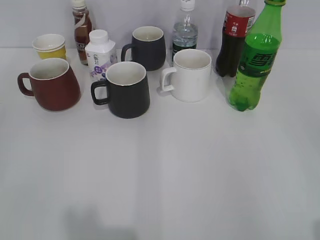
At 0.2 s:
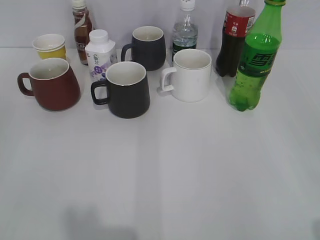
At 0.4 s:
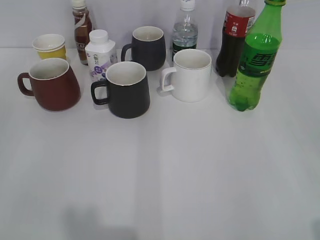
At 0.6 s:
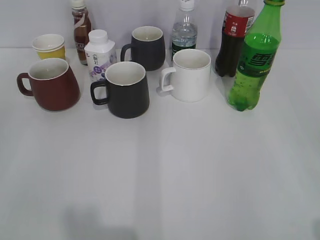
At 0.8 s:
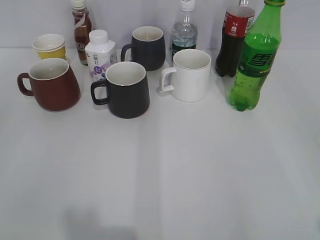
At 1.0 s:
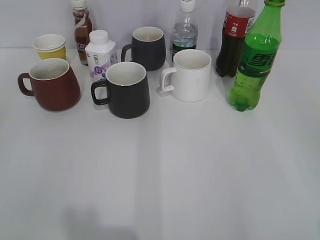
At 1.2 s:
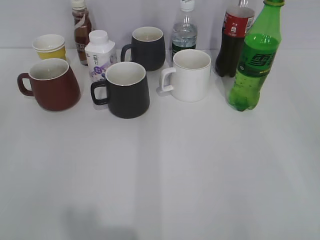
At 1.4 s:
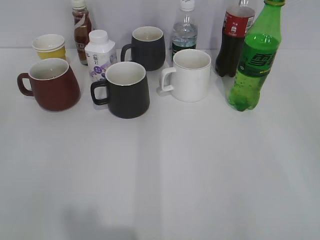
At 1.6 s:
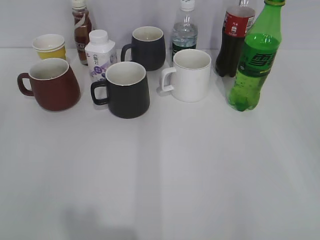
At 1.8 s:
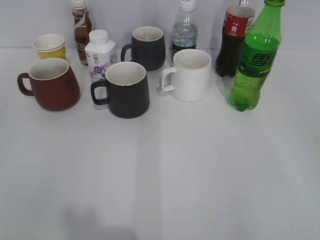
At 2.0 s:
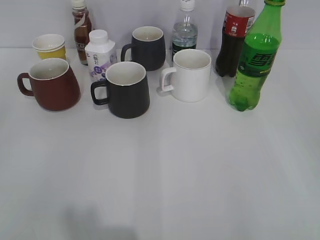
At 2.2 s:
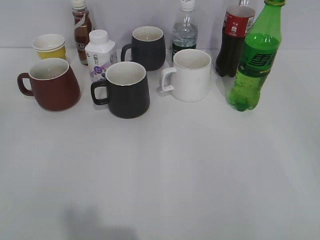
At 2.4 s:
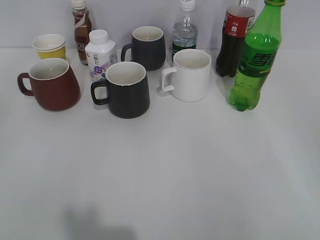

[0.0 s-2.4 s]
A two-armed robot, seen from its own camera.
1.2 to 2.4 s: The two grippers keep their place.

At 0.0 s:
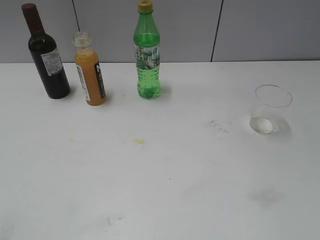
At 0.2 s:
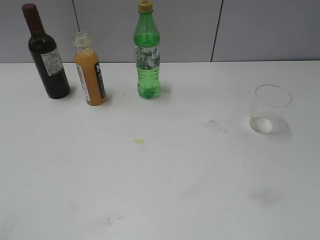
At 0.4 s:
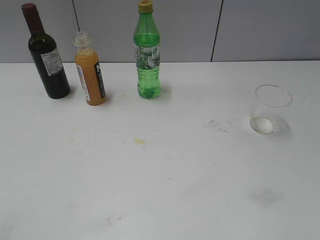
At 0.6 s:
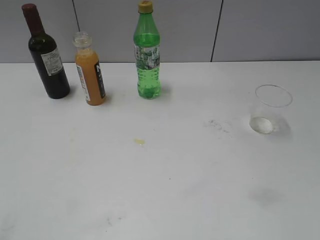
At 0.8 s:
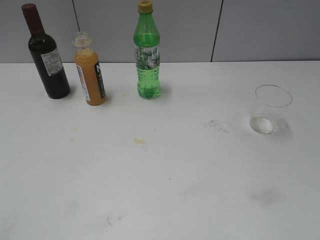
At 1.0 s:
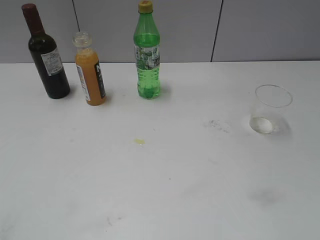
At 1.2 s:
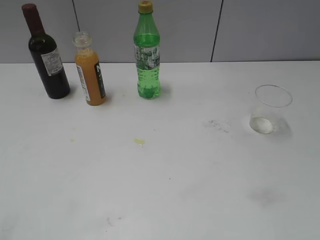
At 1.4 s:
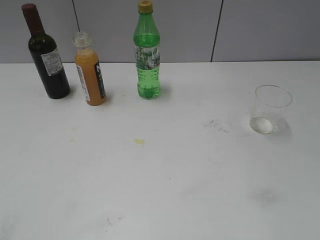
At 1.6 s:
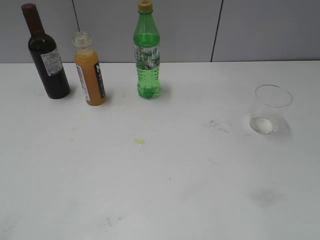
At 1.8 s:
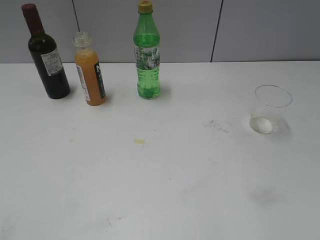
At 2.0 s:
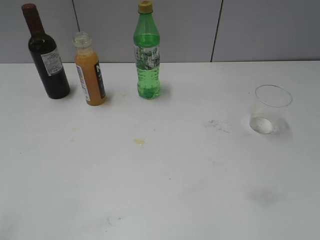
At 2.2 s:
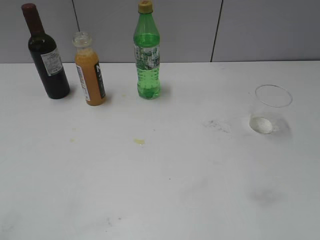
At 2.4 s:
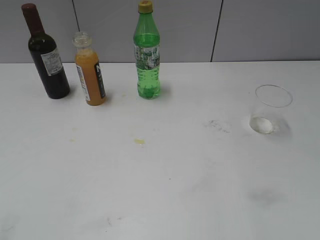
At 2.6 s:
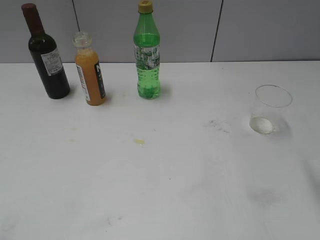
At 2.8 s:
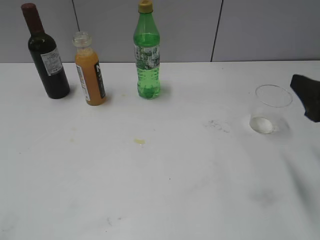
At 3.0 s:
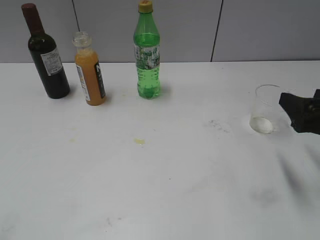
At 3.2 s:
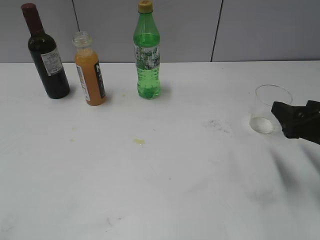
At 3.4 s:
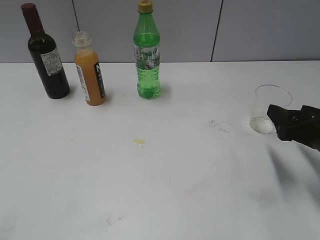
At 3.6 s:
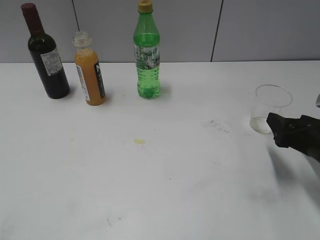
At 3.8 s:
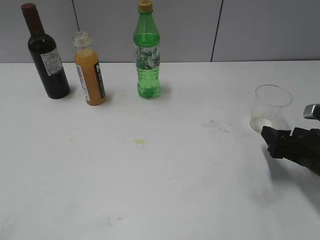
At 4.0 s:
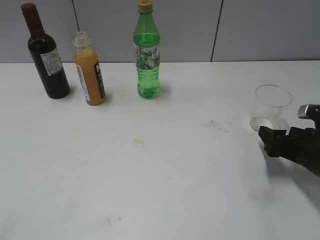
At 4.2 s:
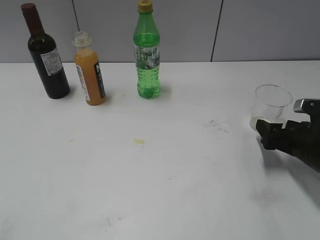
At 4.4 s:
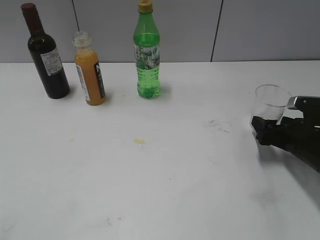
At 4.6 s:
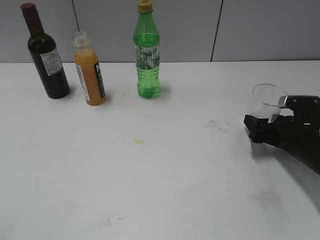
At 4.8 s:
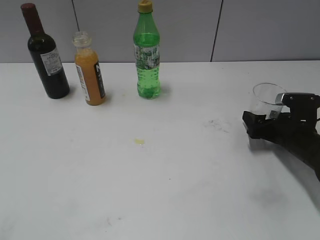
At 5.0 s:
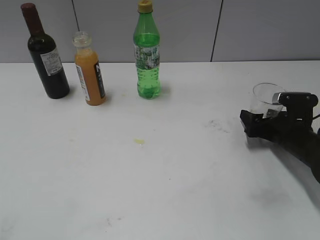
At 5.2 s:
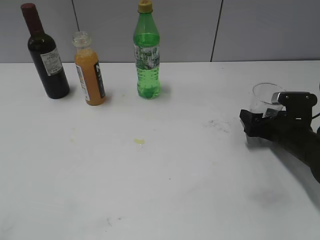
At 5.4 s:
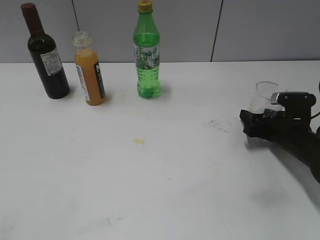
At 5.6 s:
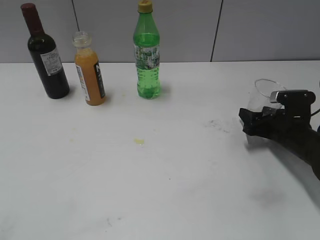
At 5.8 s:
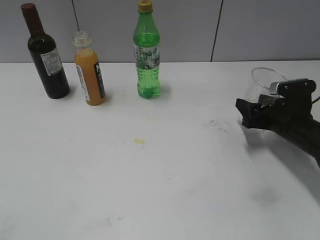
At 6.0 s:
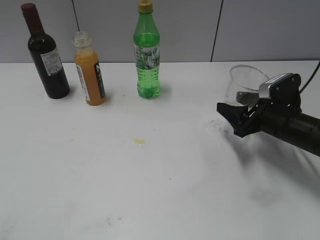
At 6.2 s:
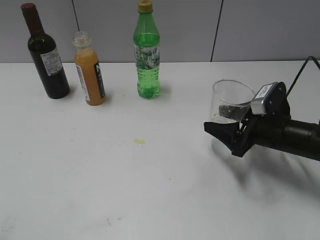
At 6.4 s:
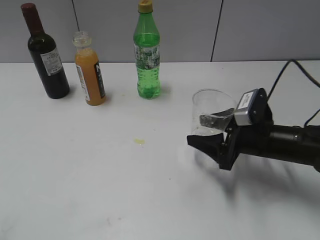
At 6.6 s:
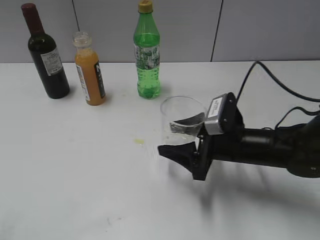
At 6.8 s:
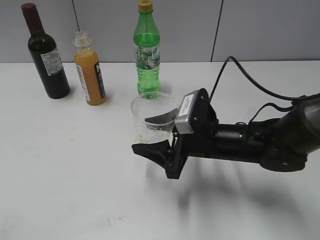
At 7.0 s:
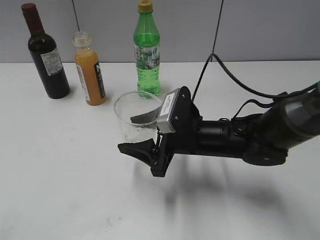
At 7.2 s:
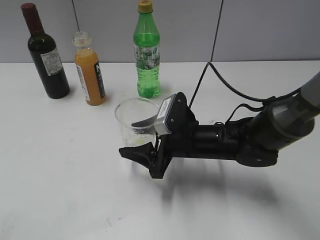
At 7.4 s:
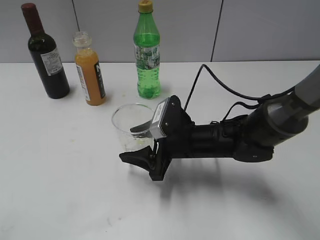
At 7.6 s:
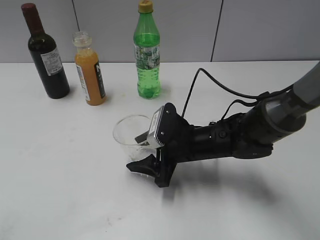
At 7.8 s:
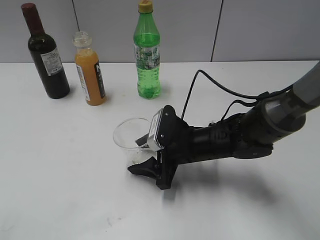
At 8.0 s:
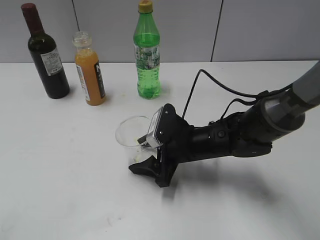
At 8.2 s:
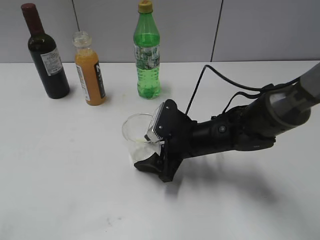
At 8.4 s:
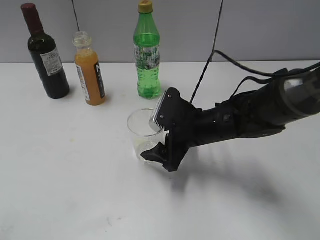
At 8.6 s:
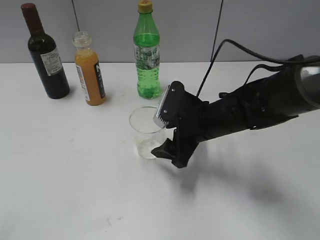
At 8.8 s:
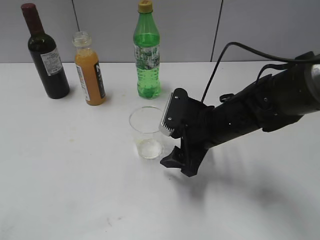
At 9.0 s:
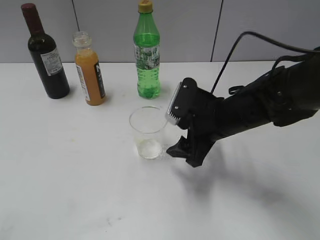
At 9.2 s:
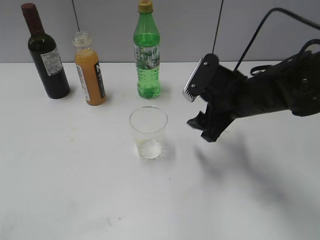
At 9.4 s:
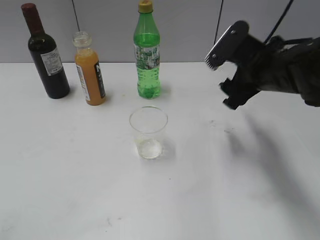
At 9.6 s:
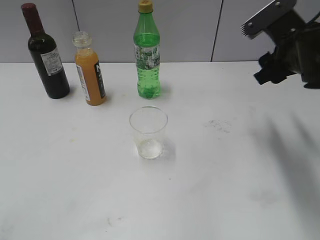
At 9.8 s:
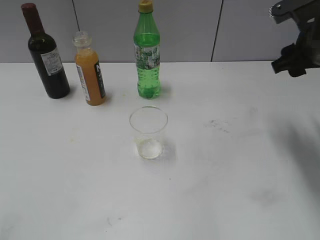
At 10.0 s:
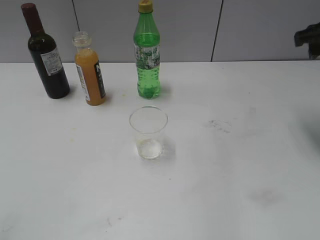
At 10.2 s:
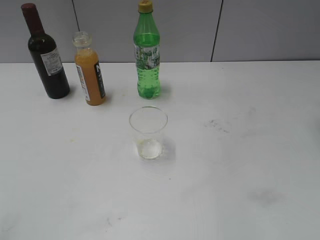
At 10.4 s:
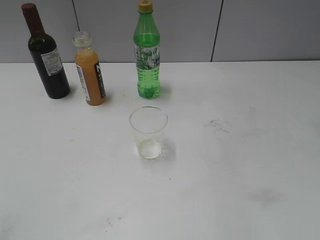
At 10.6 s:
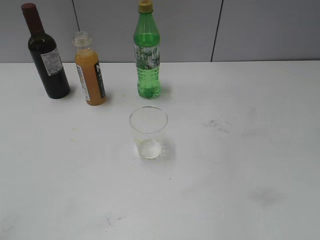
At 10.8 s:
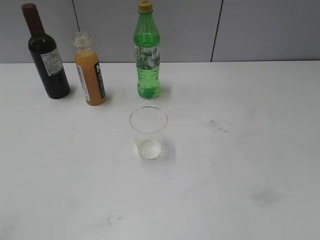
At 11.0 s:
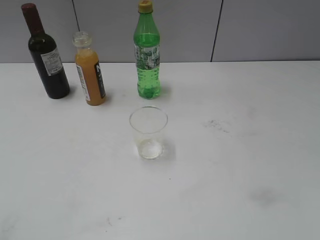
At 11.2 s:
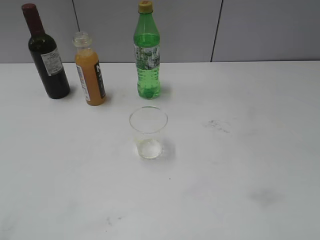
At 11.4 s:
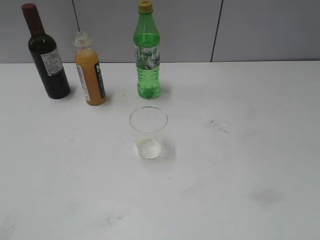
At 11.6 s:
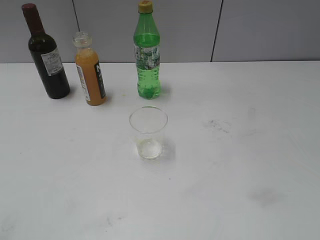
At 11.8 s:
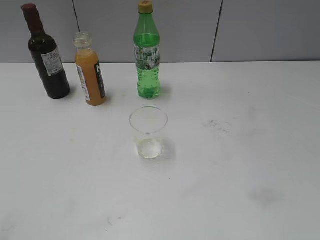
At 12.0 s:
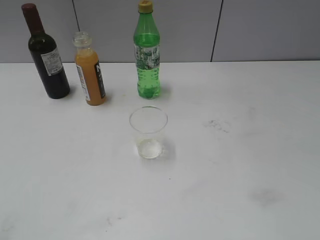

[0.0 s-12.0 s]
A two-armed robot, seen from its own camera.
Step, 2.8 to 5.4 s: Grasp the transparent cup with right gripper.
Step, 5.6 to 8.8 s: Place the transparent cup on the table with right gripper.
1.6 to 3.0 s: The right gripper moves forward and downward, approximately 20 cm.
3.0 to 4.4 s: The right gripper moves downward and forward, about 15 cm, and opens its fingers.
4.4 to 6.0 s: The right gripper changes place by approximately 5 cm, and closes.
6.0 to 7.6 s: The right gripper moves to the left, roughly 15 cm.
7.6 to 9.0 s: The right gripper goes some 5 cm upward, and opens.
9.0 to 10.4 s: The right gripper is displaced upward and to the right by approximately 30 cm, and closes.

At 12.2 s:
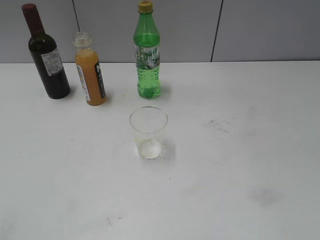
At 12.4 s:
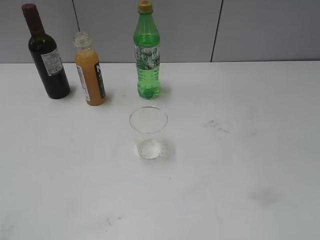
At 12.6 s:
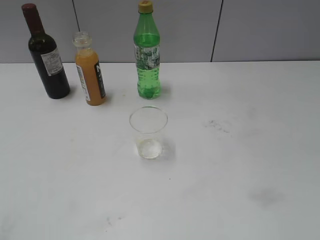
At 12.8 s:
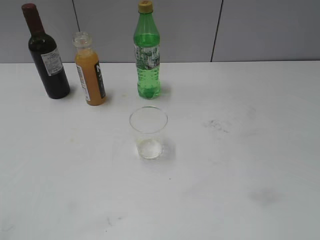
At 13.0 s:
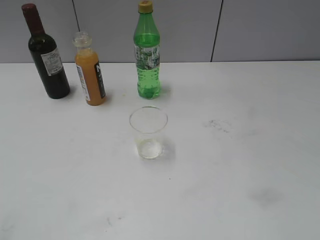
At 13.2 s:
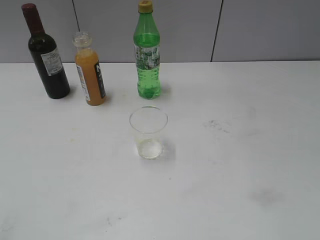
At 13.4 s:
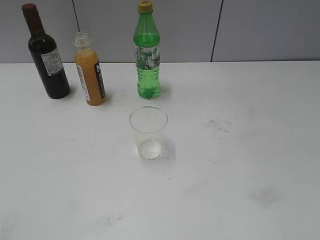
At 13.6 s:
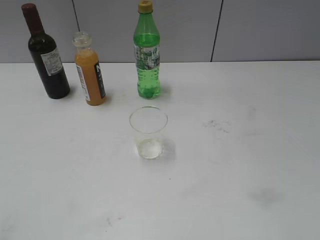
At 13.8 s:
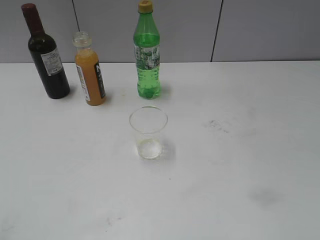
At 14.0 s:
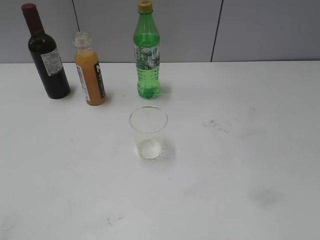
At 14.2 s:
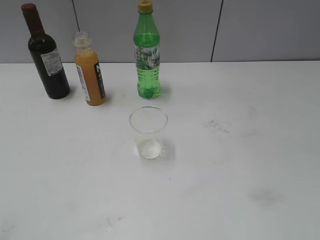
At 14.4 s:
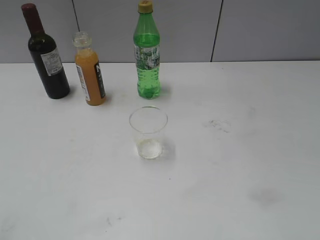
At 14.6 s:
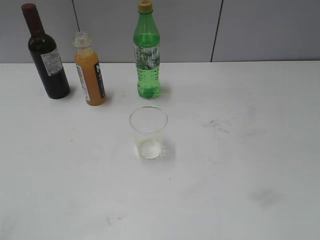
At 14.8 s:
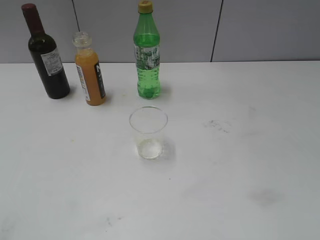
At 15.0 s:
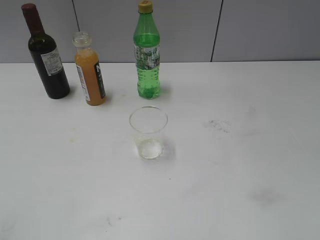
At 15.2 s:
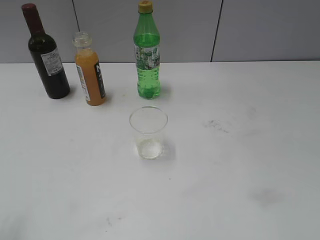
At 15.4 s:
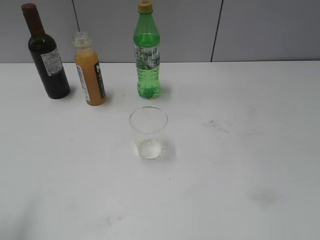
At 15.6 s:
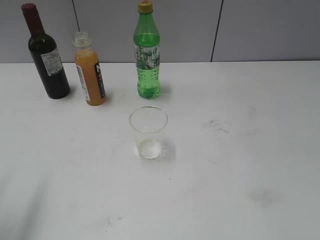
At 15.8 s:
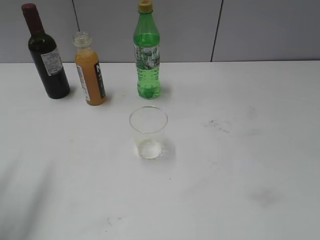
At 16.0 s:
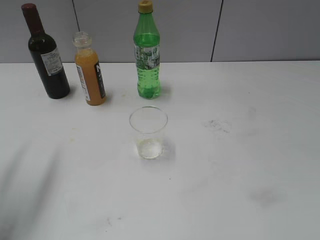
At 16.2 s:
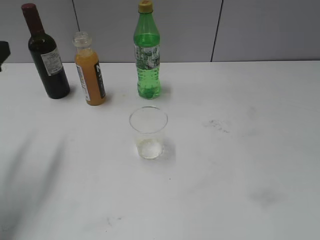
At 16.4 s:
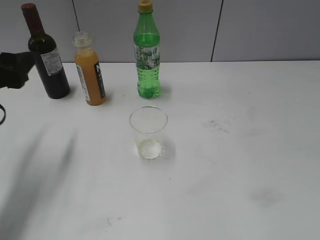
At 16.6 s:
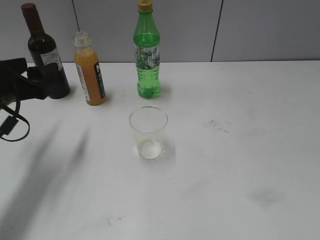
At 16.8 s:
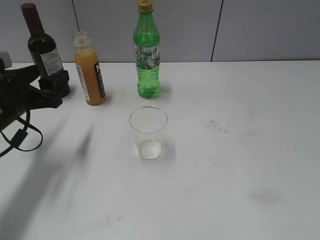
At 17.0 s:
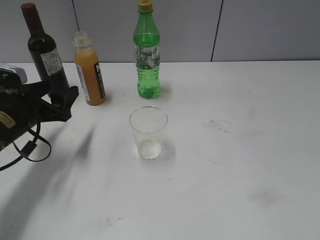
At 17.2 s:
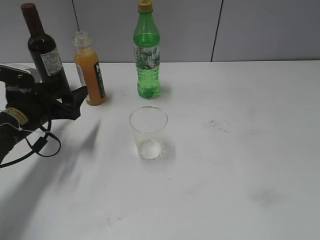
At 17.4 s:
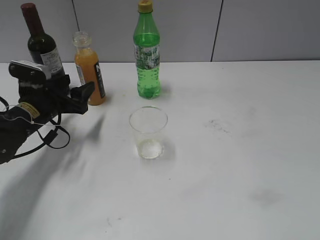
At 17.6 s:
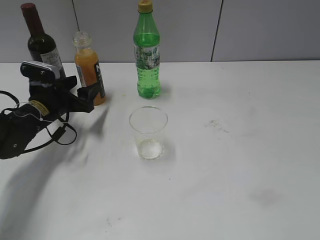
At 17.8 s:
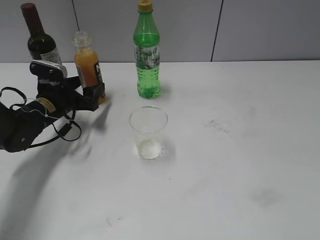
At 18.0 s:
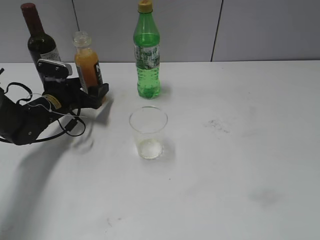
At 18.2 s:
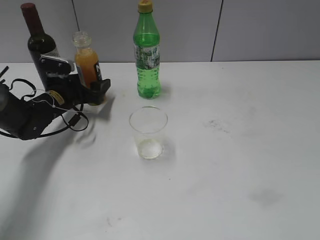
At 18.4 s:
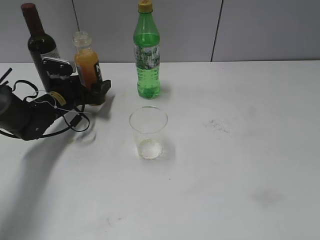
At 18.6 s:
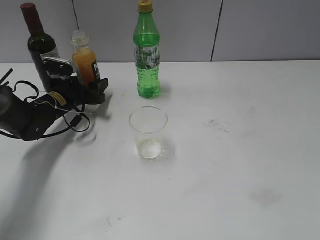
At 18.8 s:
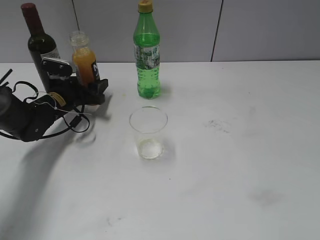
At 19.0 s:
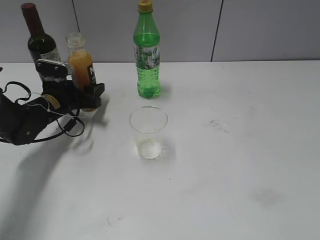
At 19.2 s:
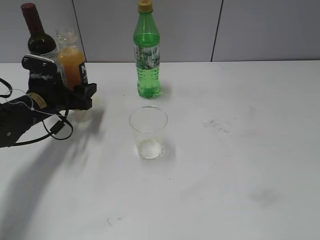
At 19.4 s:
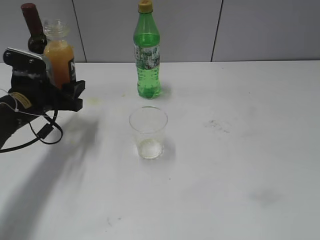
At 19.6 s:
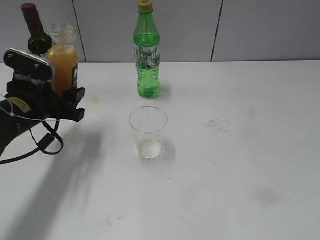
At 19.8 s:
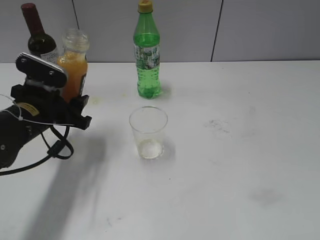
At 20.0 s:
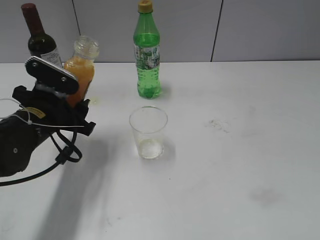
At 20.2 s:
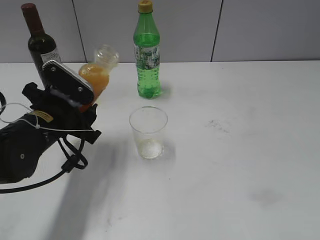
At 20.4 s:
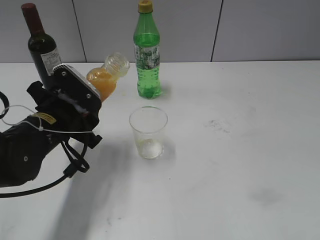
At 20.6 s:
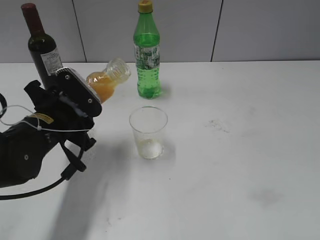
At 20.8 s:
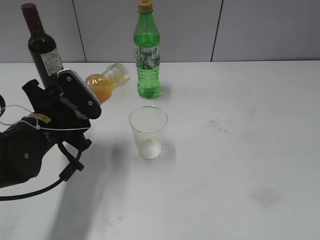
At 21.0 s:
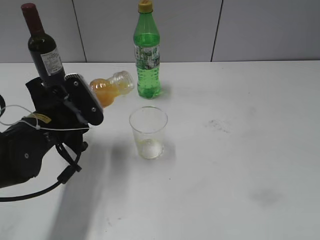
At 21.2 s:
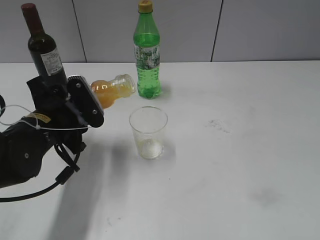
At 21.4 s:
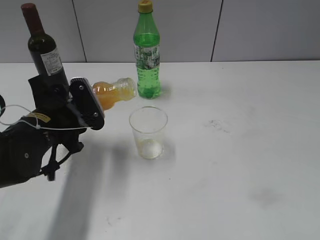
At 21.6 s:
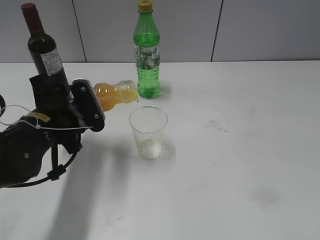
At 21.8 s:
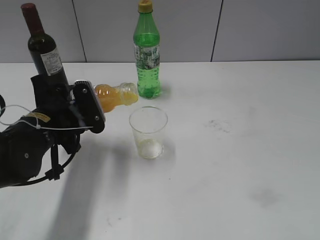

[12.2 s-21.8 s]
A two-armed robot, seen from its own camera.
Step, 12.2 to 18.6 s: Grasp the bottle with orange juice with left gripper.
15.4 to 17.0 s: The left gripper moves forward and downward, approximately 25 cm.
17.0 to 18.6 s: The left gripper heads forward and downward, covering roughly 15 cm.
18.6 to 20.2 s: The left gripper goes approximately 20 cm backward and upward.
